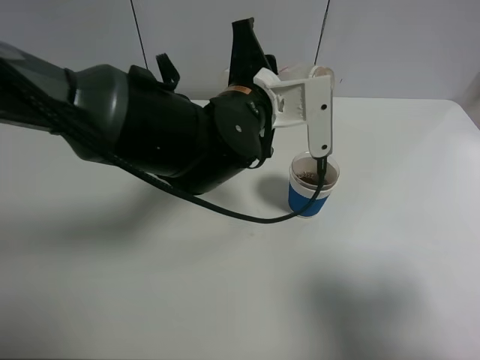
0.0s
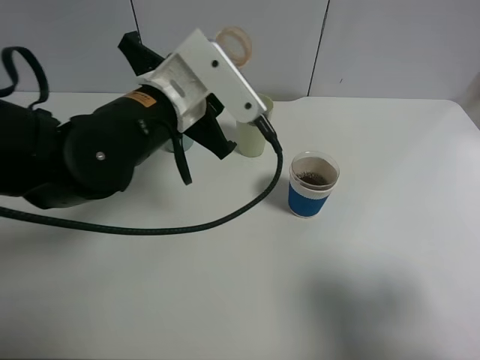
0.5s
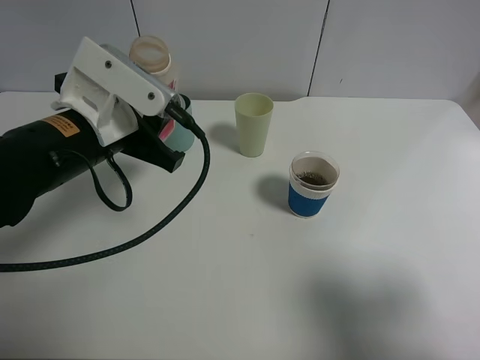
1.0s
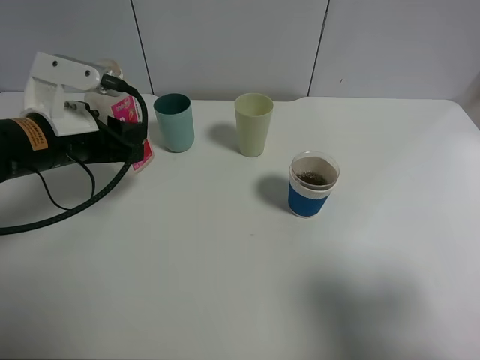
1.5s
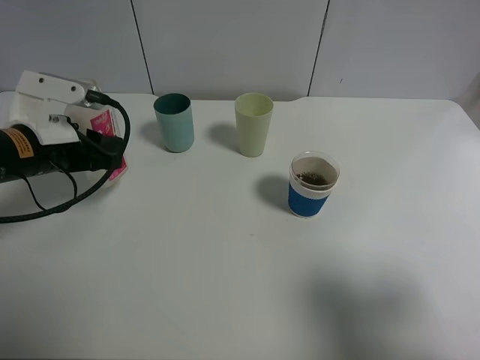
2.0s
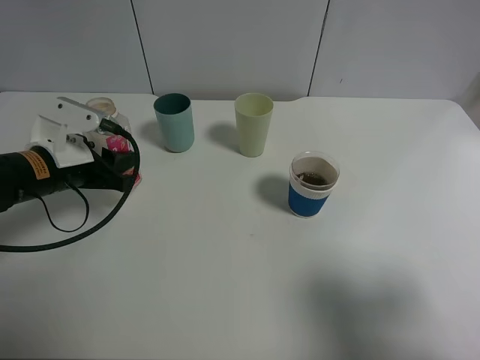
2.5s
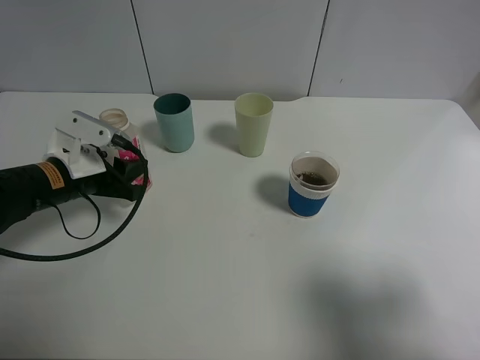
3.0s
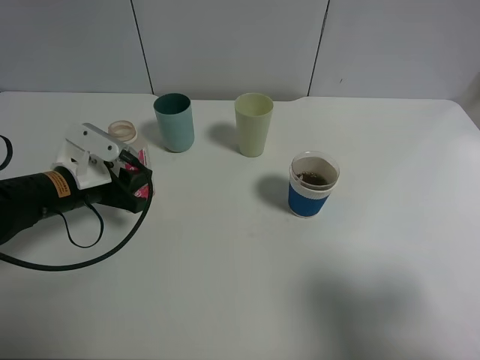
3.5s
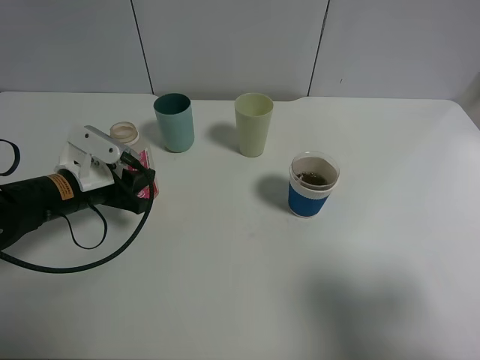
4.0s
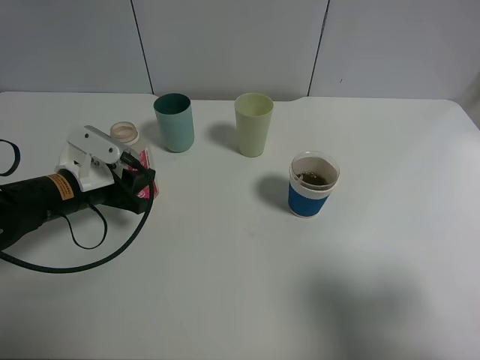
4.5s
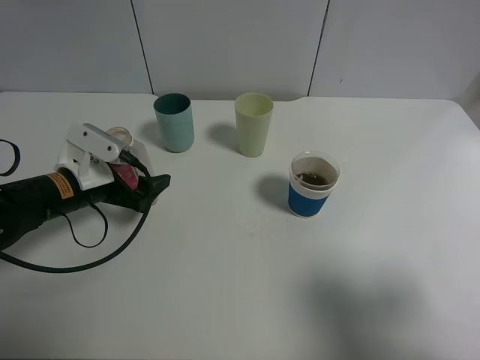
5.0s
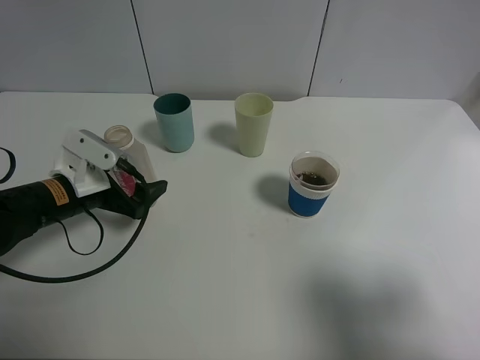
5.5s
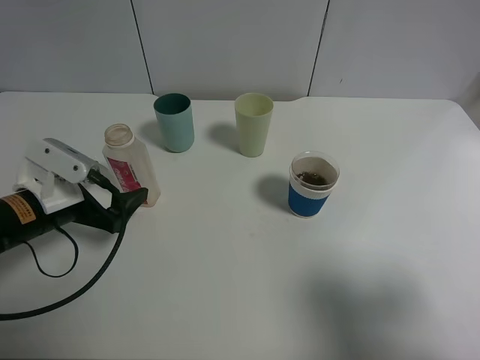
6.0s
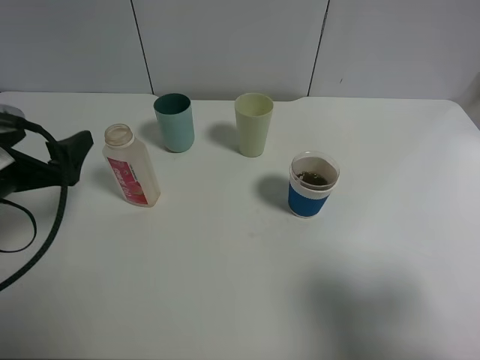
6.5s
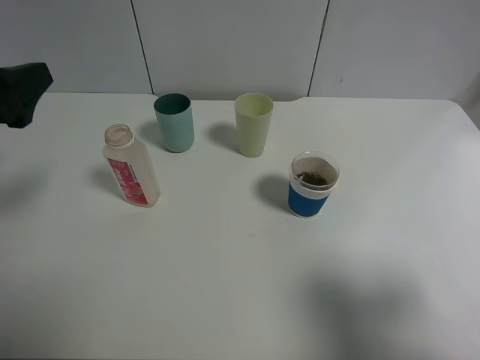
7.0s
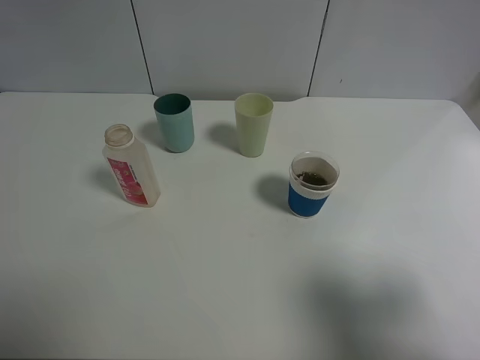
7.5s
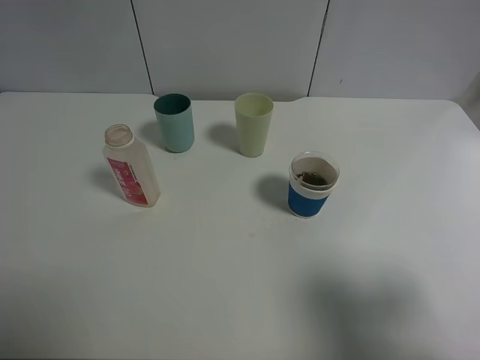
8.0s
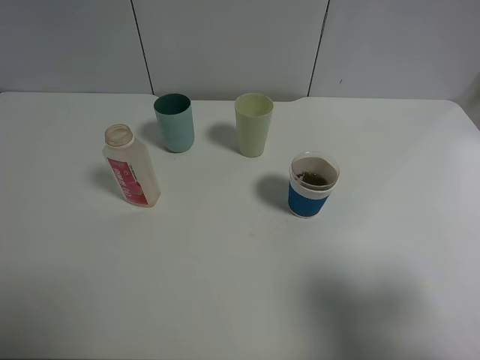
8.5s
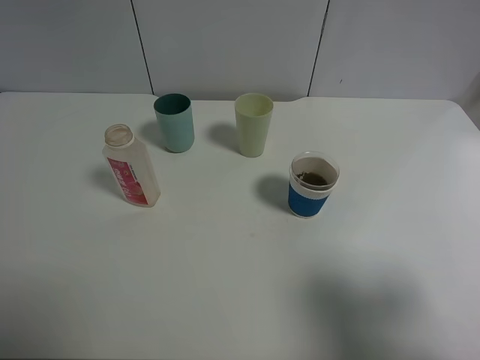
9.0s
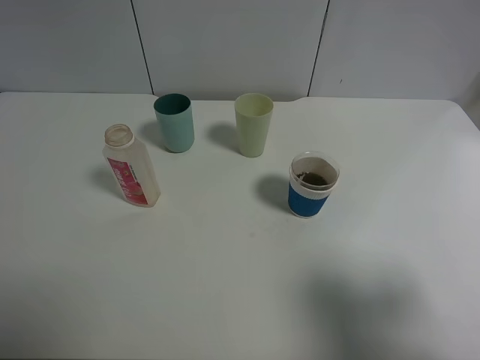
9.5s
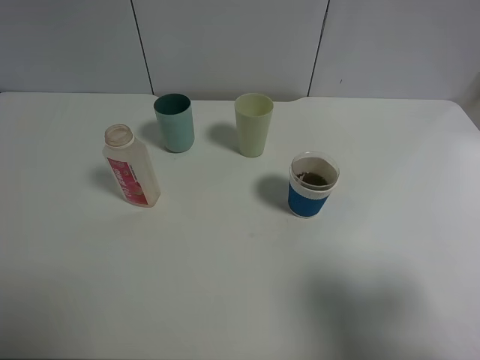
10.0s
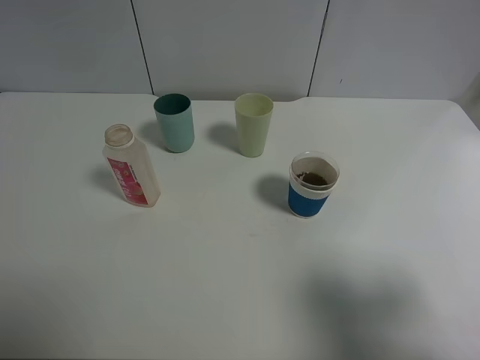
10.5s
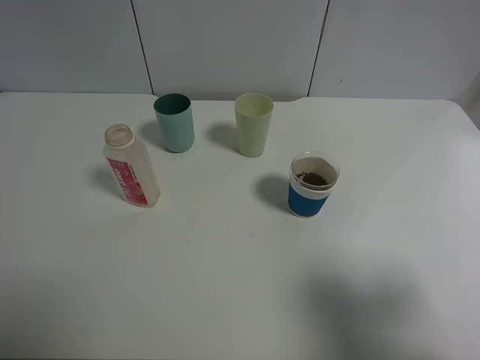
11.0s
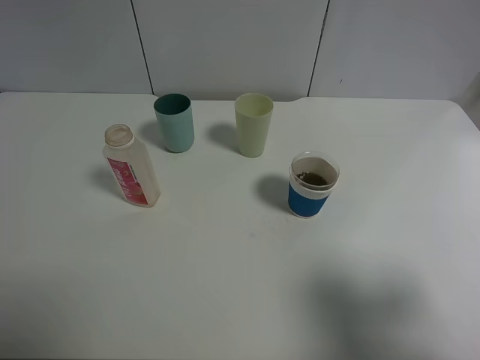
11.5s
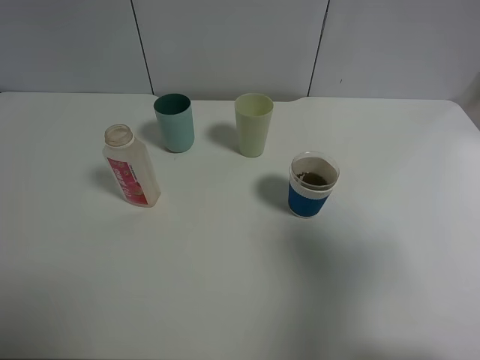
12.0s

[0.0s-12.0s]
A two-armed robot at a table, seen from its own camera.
Task of the whole recording: use a clamp to hold the bottle of the drink, pour the beverage into a random cup, then clamp the cup containing the drink and pour the drink into another random cup.
Step, 0.5s to 5.5s: Place the drink bottle on the table with left gripper.
0.0s to 2.0s: The left gripper shifts roughly 25 cm to the left.
2.0s to 4.0s: The left gripper shifts about 10 cm downward.
4.0s to 6.0s: The left gripper travels backward by about 5 cm, and opens its fingers.
6.0s to 8.0s: The left gripper is displaced upward and backward by about 25 cm.
10.0s to 12.0s: The right gripper is displaced forward and upward by approximately 10 cm.

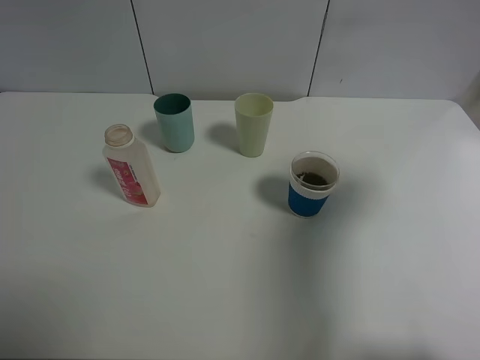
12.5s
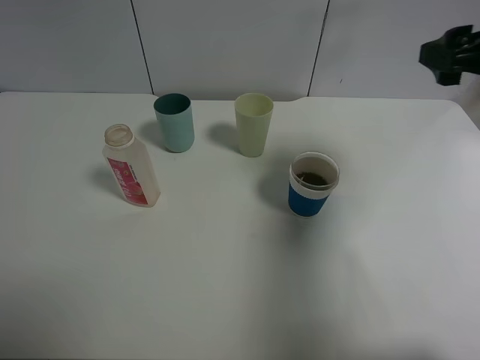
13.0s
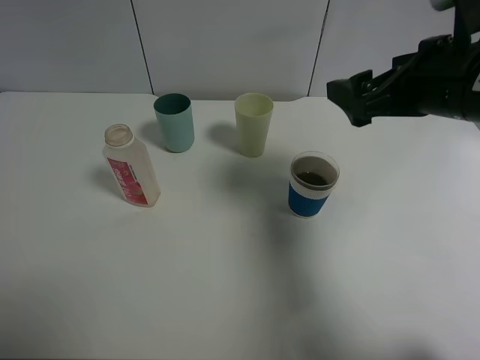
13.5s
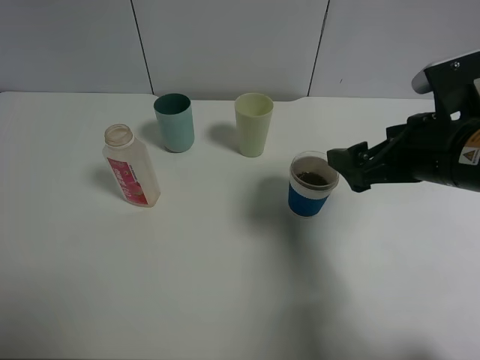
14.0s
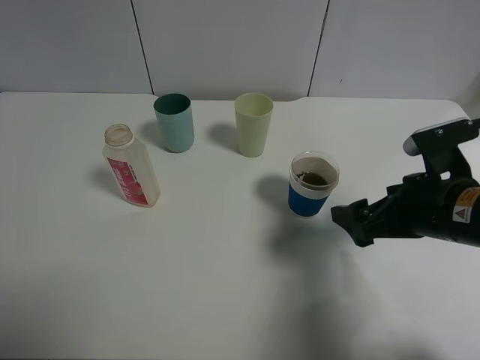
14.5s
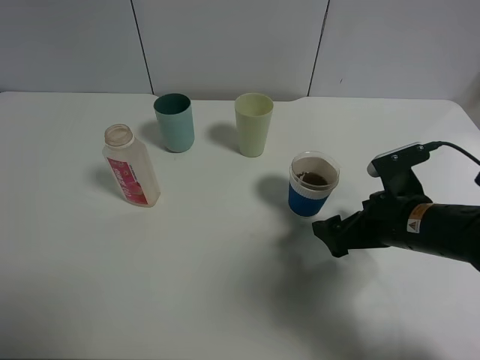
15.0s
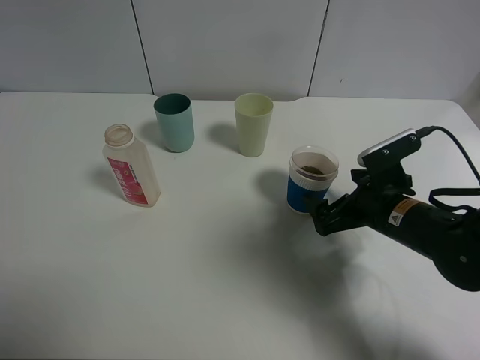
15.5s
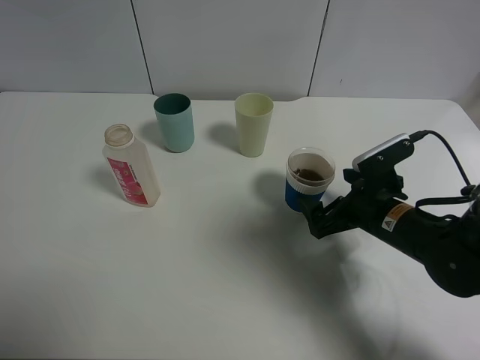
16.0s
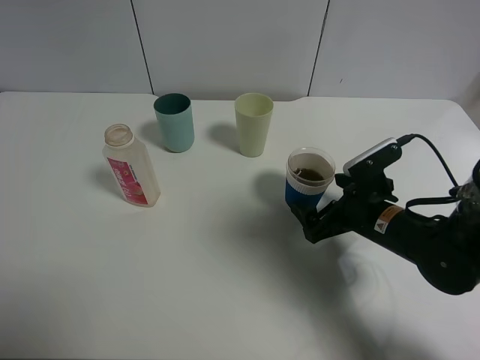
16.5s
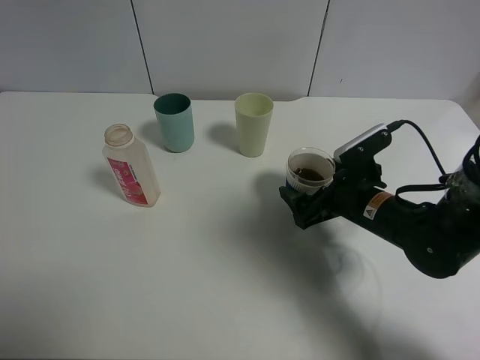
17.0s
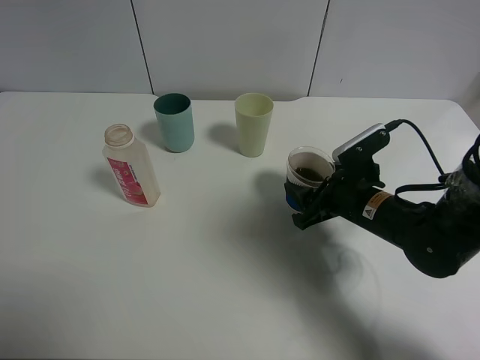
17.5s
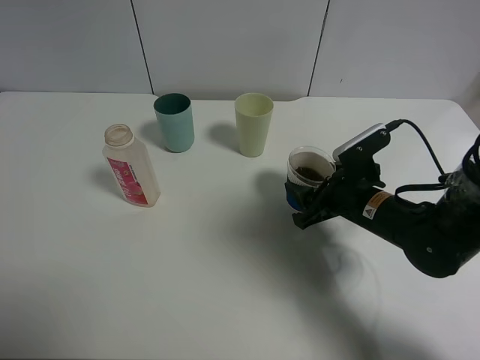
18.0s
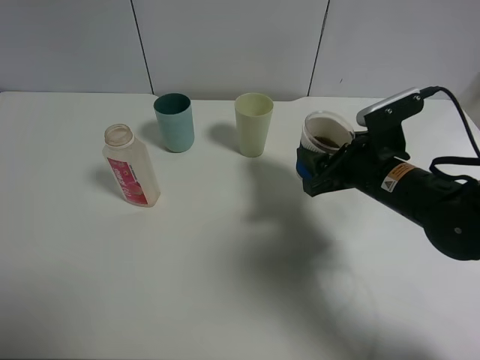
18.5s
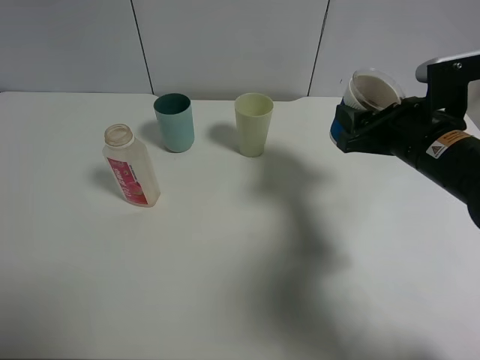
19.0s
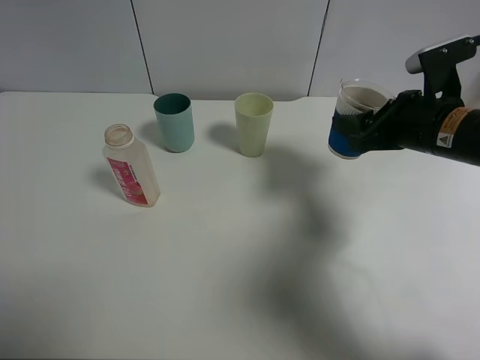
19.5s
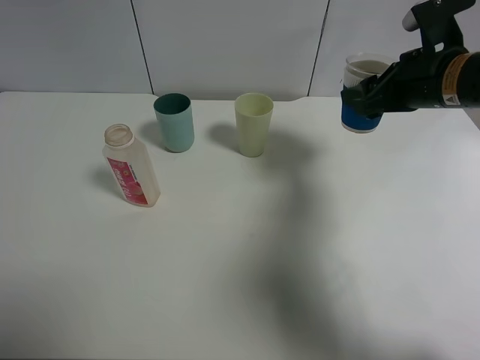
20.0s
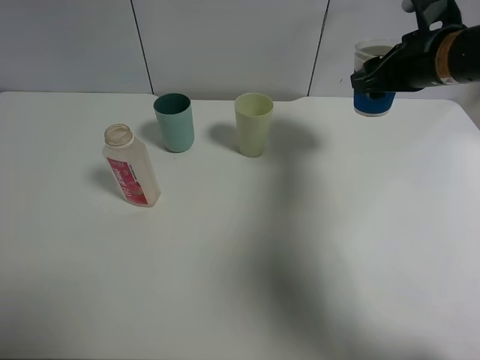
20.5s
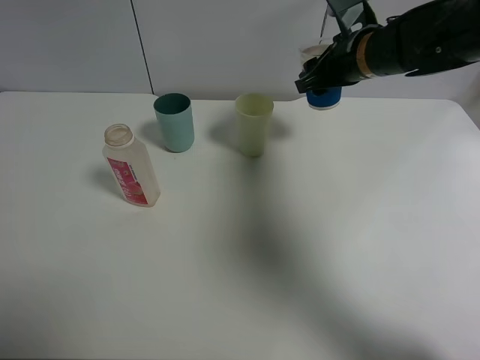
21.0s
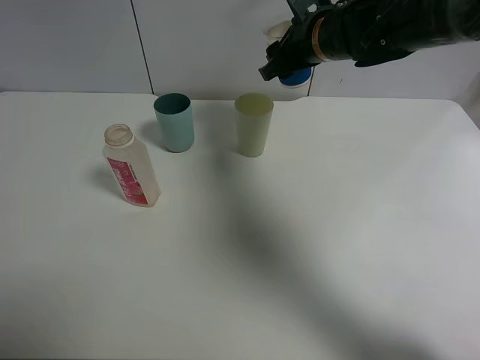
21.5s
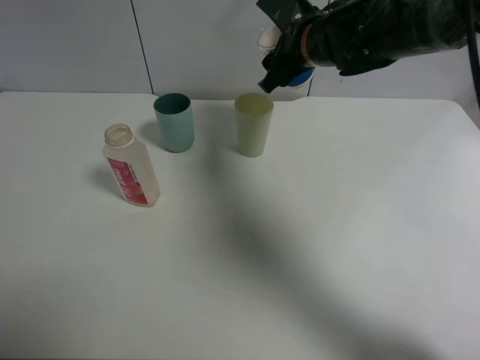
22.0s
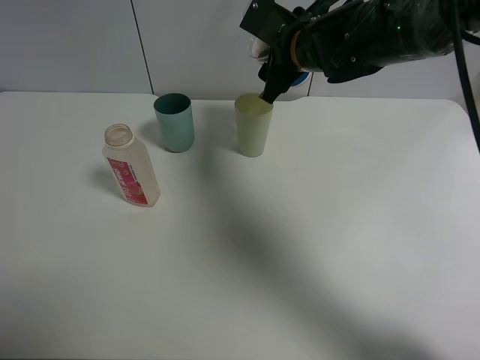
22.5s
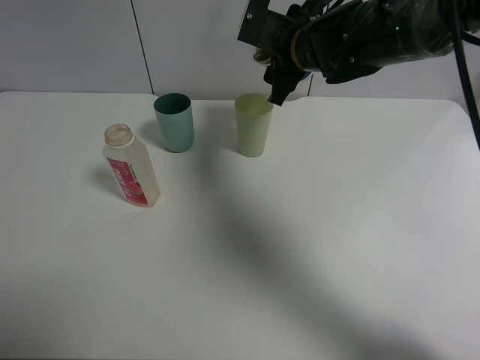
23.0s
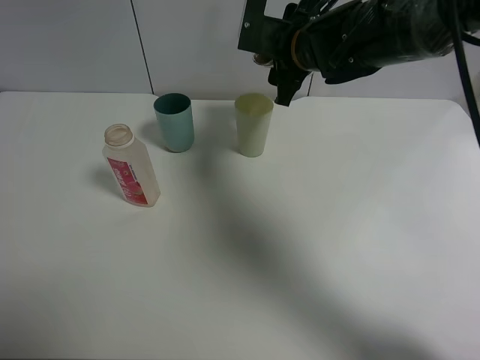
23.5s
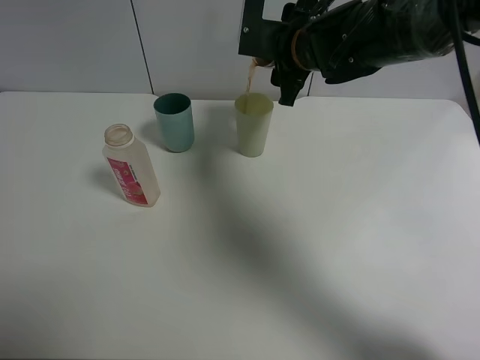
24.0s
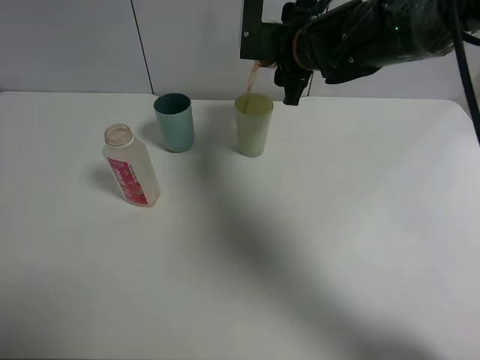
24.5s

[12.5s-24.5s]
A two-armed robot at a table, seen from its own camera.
Task of the whole recording: use a clamp to hold the bottle of the drink, pour the beverage into a random cup, then clamp the cup containing the drink and pour the drink into another random cup.
Step, 12.5s to 18.0s: Pick up the paper cup with right gripper.
12.5s to 14.5s: The right gripper travels downward and to the left by roughly 20 cm.
14.5s to 16.5s: The right gripper travels downward by approximately 10 cm.
16.5s to 18.5s: The right gripper shifts about 5 cm upward, and closes its fingers.
18.5s to 20.5s: The right gripper moves upward, forward and to the right, about 15 cm.
20.5s to 22.5s: The right gripper shifts about 15 cm to the left.

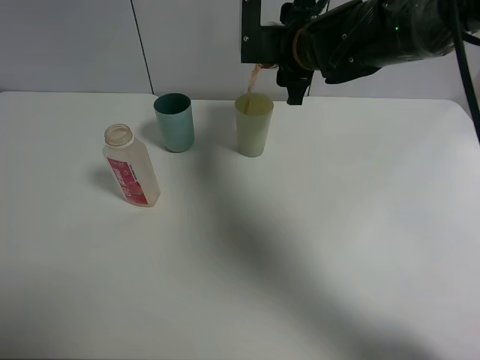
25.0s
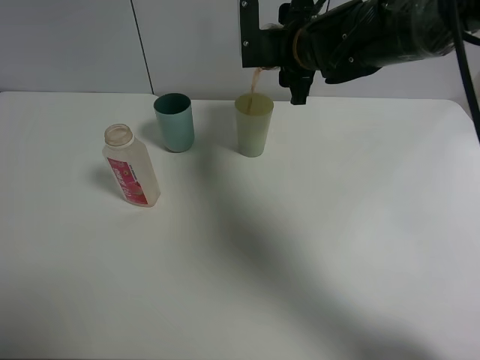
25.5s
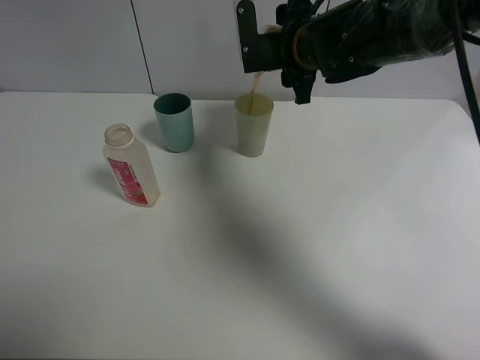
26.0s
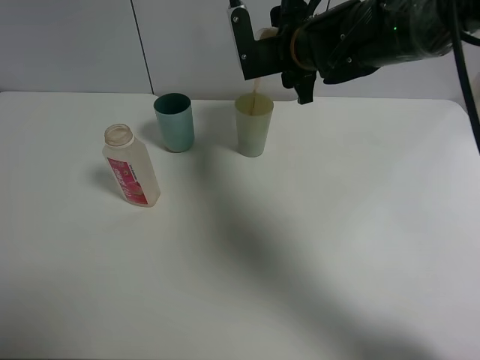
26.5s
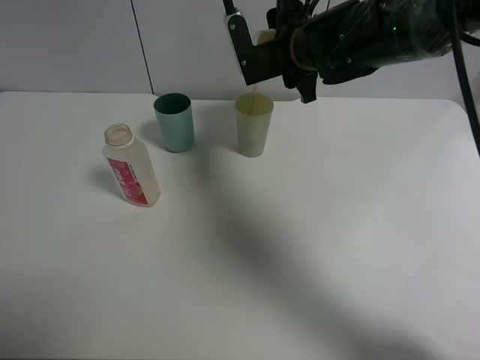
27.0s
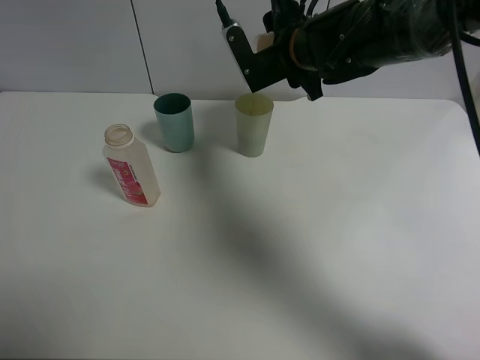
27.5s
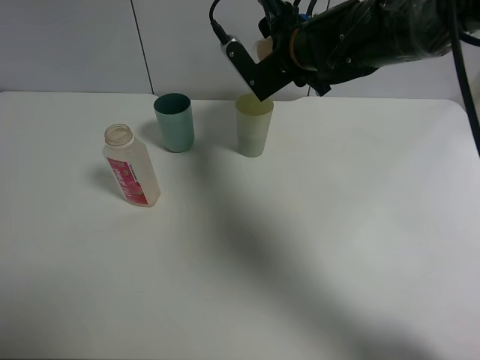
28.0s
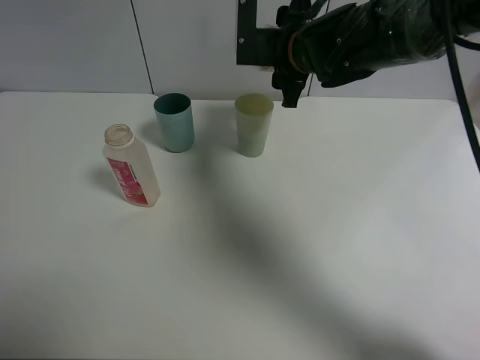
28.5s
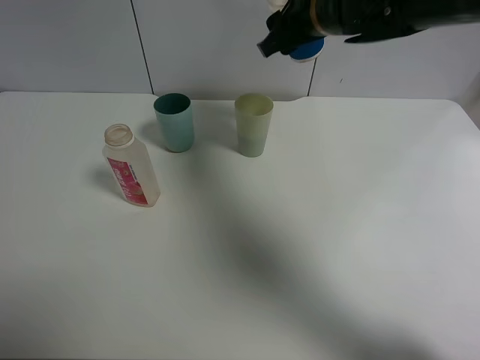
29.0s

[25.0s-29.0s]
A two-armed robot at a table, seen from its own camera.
Task of the whole recording: use a clamp to hold the bottle of the drink, pour the beverage into a random cup, then clamp the cup containing the drink and pour the drink into another random cup.
Step, 25.0s to 28.5s: Pour the drink into the green plastic cup with right gripper.
27.0s to 29.0s: The right gripper travels upward by approximately 5 cm.
